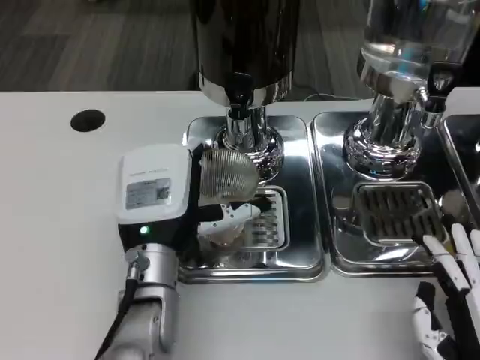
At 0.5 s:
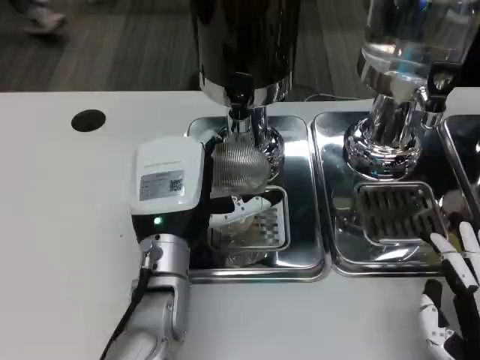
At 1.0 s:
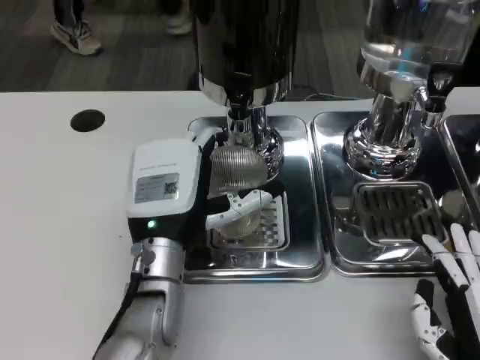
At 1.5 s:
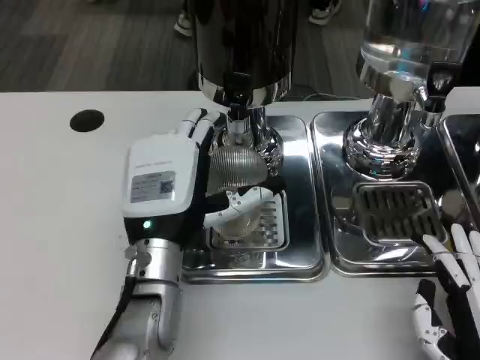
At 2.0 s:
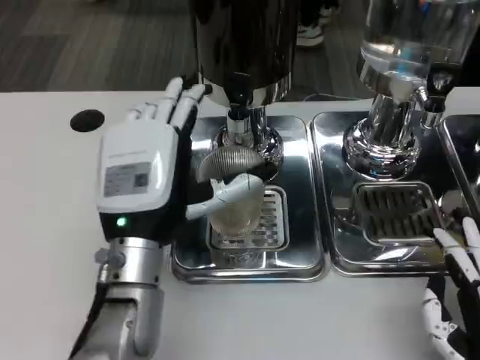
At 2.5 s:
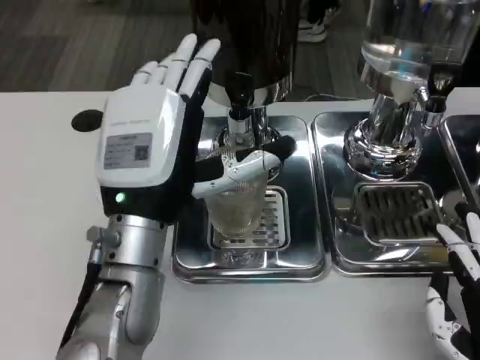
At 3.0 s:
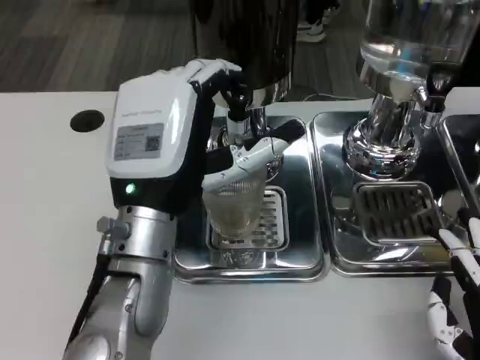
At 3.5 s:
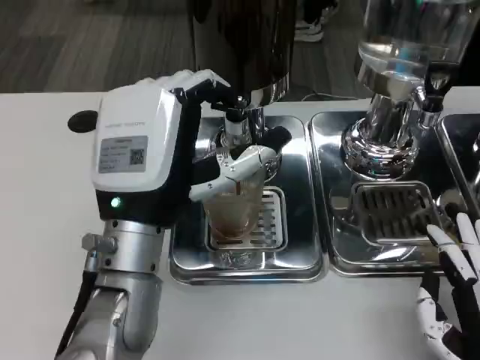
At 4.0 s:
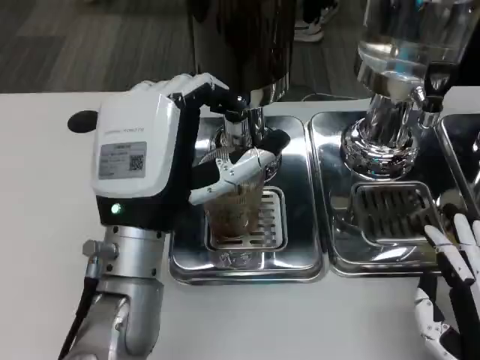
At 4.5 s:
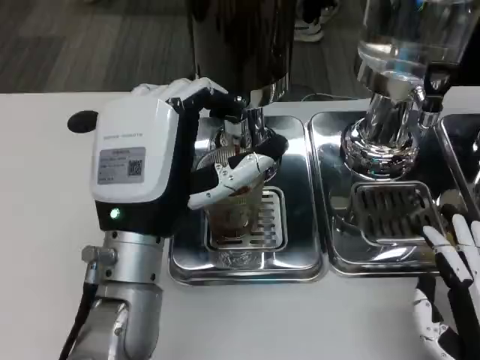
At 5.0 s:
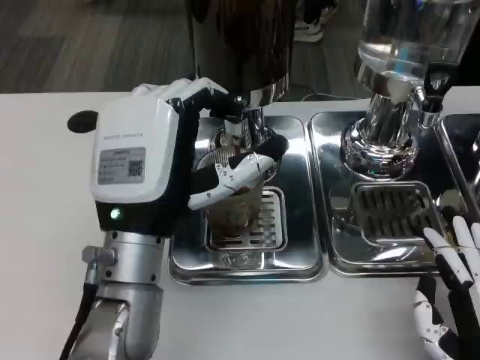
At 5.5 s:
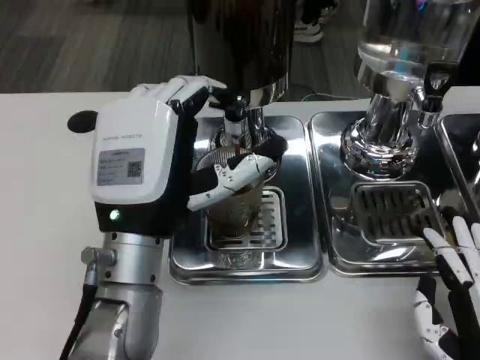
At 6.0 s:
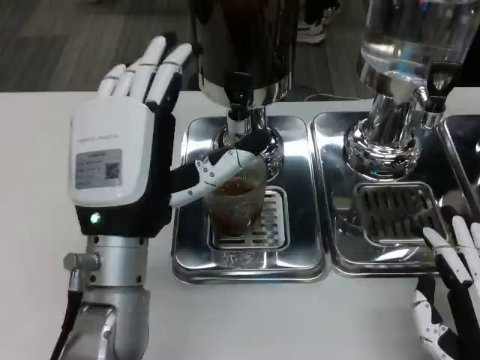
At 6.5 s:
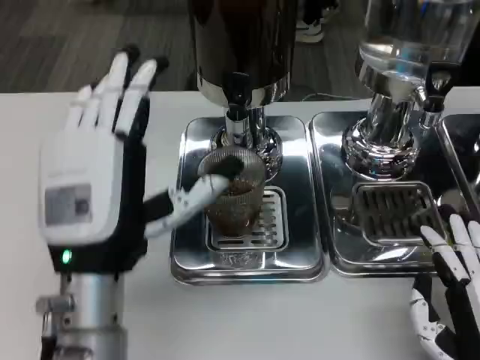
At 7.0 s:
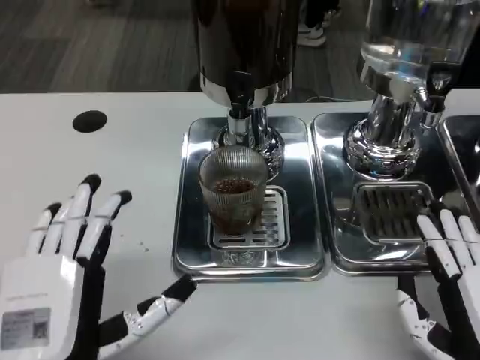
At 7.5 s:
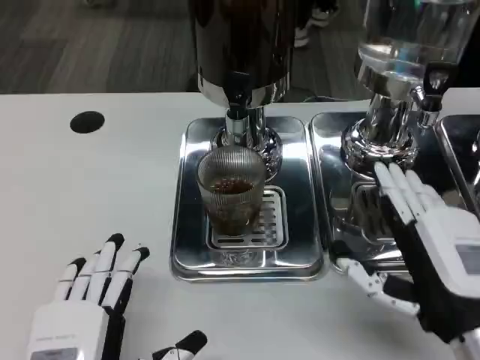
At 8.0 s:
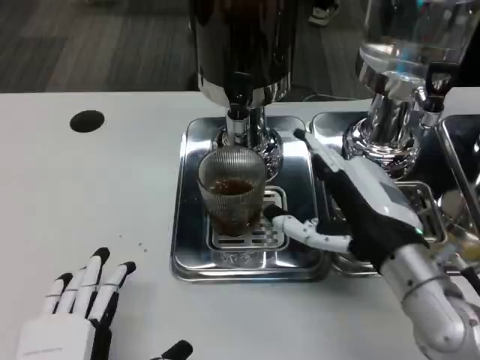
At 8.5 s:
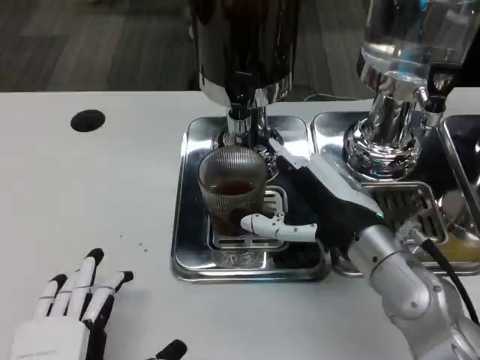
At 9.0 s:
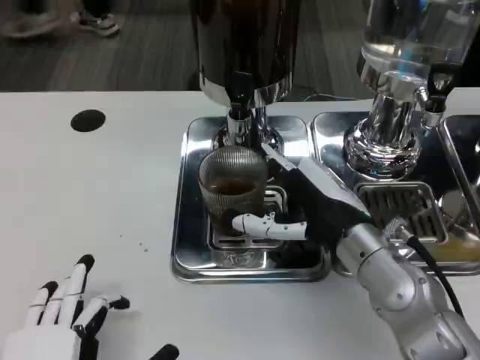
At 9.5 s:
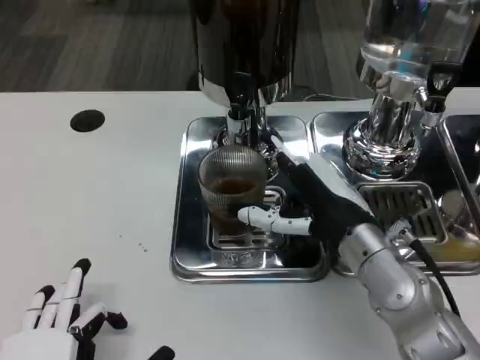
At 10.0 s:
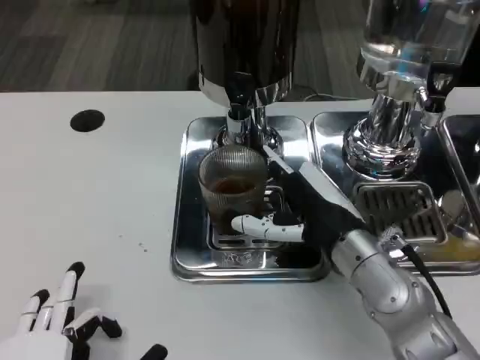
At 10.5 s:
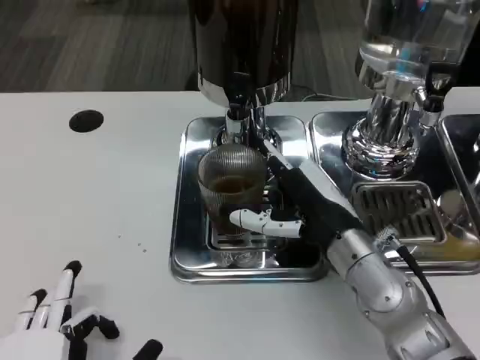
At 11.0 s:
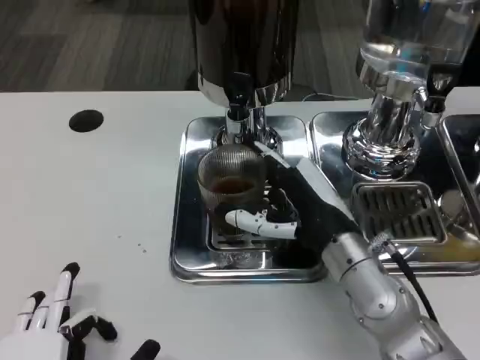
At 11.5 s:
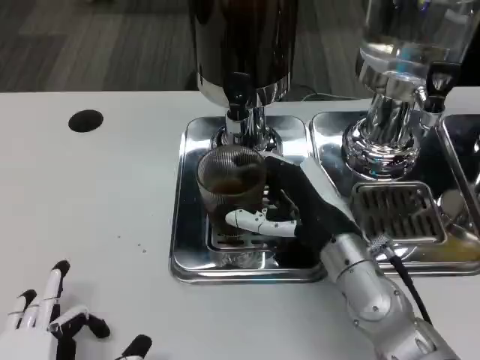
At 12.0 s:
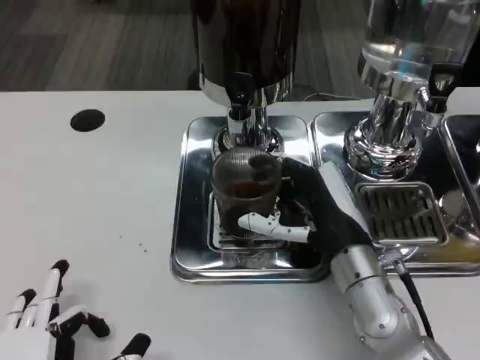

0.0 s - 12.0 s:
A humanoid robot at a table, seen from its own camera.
Task of the whole recording: Grasp the cup under the faucet to collect the drink, then remove the cup.
0.0 s - 2.0 s: The hands move only a little.
6.0 s - 8.0 s: The right hand shifts roughly 15 cm forward, upward and to the left, while the left hand goes about 20 cm backward, downward and to the left.
8.0 s - 10.0 s: The right hand changes place by about 5 cm.
10.0 s - 12.0 s: There are only small adjustments of the hands.

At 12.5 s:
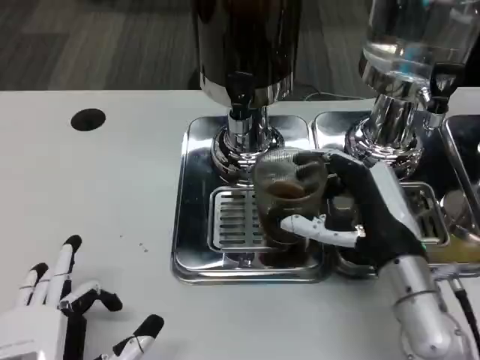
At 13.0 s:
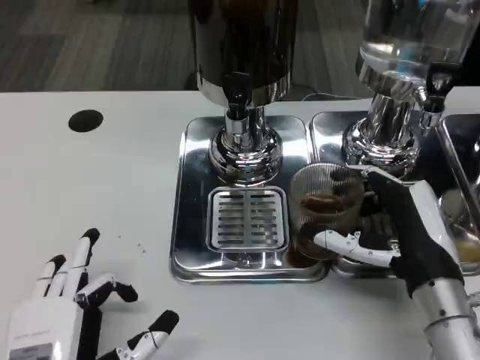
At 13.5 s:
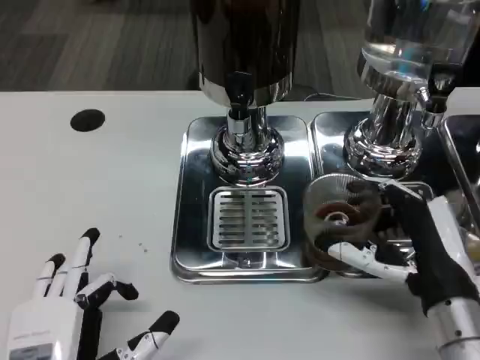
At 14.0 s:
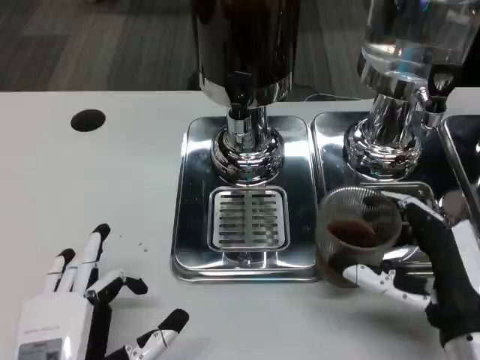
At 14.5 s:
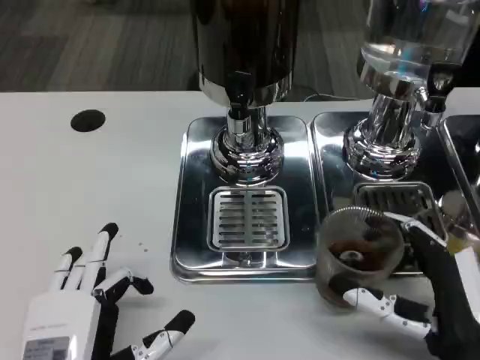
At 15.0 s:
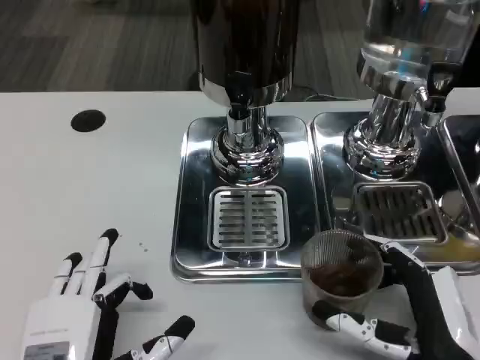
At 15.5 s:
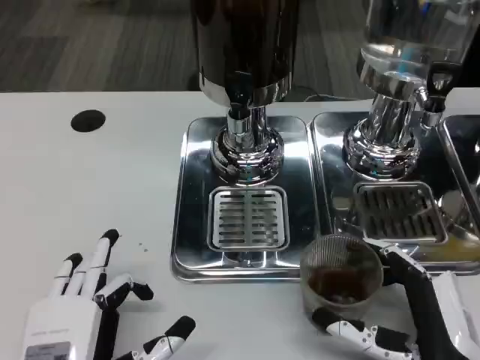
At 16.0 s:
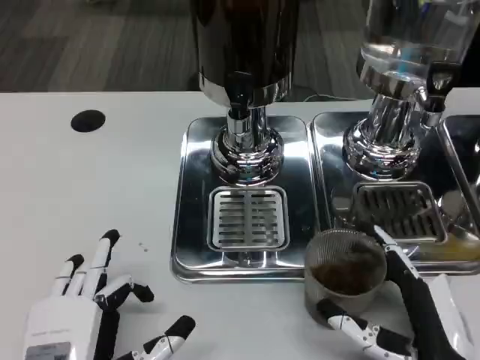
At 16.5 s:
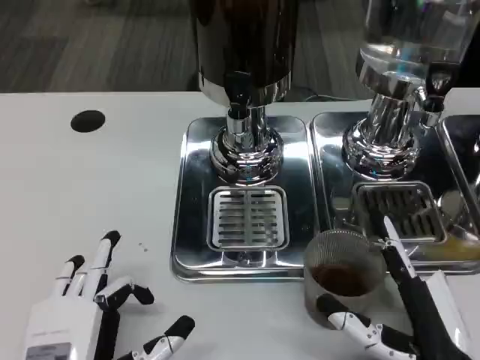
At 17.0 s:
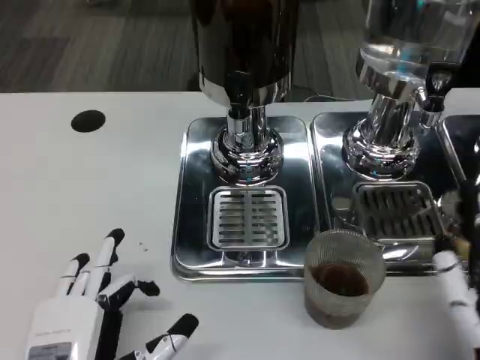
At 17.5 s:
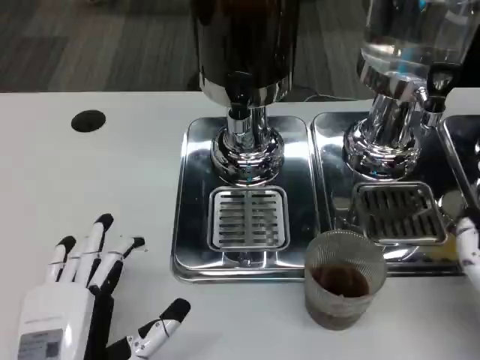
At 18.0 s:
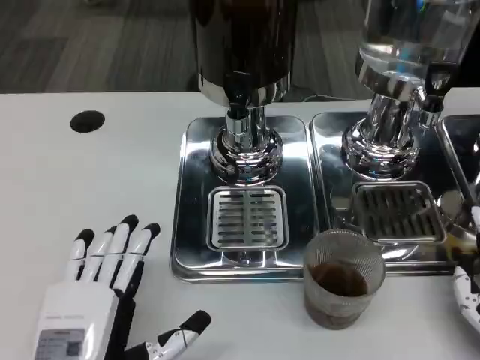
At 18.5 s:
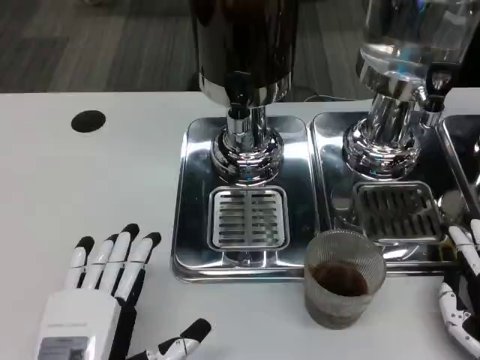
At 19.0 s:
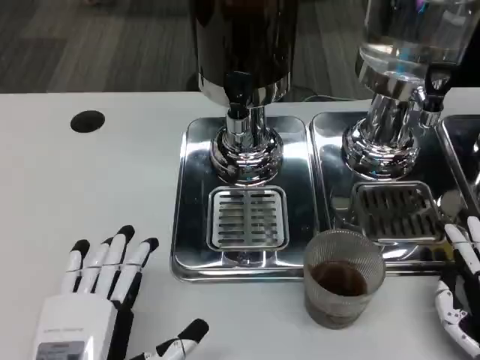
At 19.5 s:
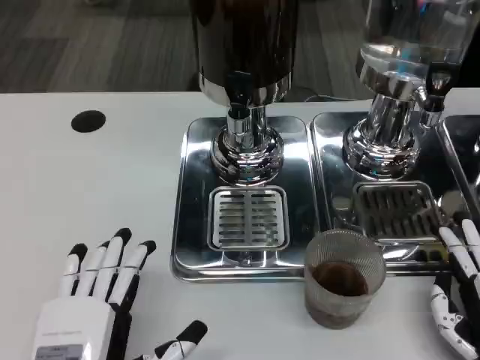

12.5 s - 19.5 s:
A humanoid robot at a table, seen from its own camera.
Task of the whole recording: Grasp the cup under the faucet to collect the drink, then remove the cup.
12.5 s - 14.5 s: The right hand heads backward, covering approximately 10 cm.
14.5 s - 16.0 s: The hands move only a little.
16.0 s - 17.5 s: The right hand shifts approximately 5 cm to the right.
17.5 s - 19.5 s: The right hand moves downward, roughly 5 cm.

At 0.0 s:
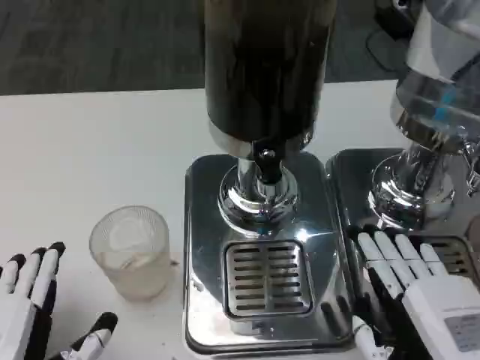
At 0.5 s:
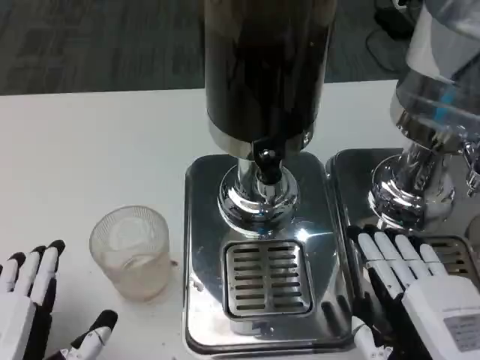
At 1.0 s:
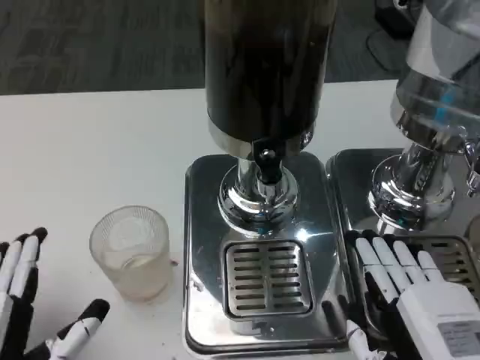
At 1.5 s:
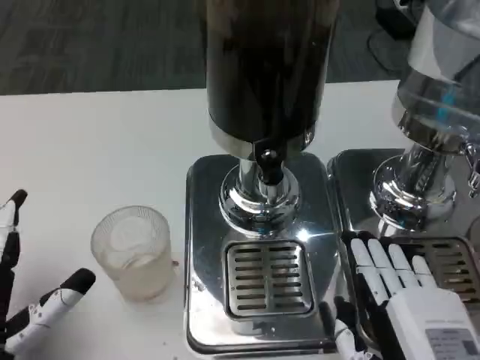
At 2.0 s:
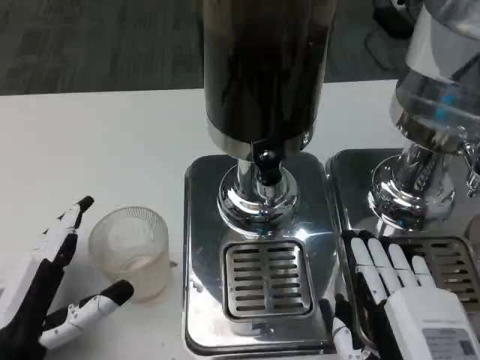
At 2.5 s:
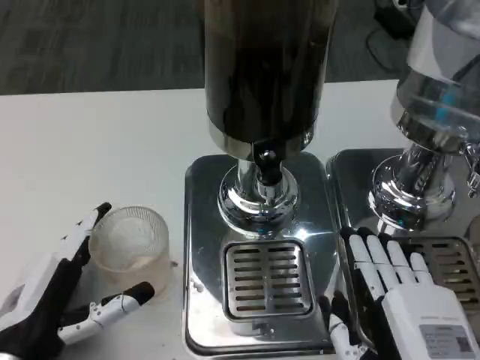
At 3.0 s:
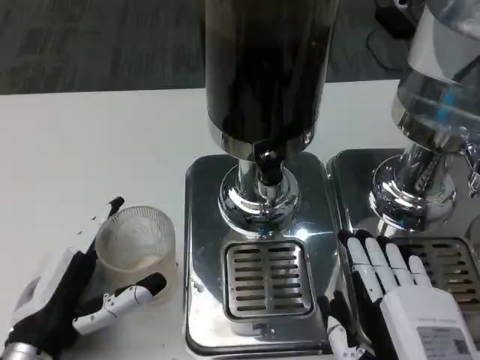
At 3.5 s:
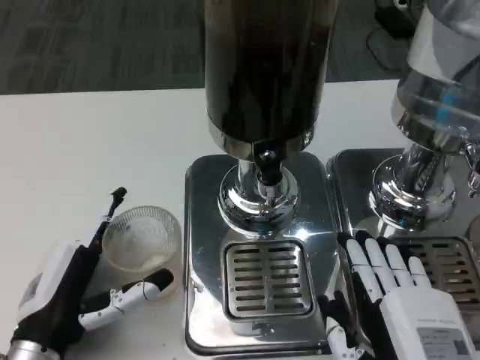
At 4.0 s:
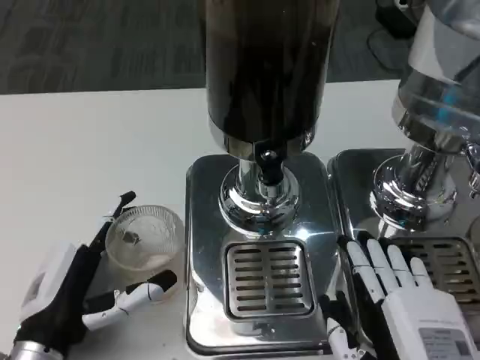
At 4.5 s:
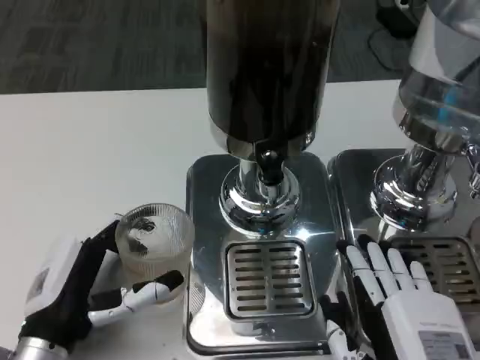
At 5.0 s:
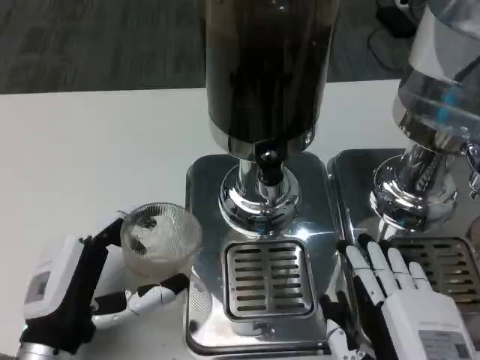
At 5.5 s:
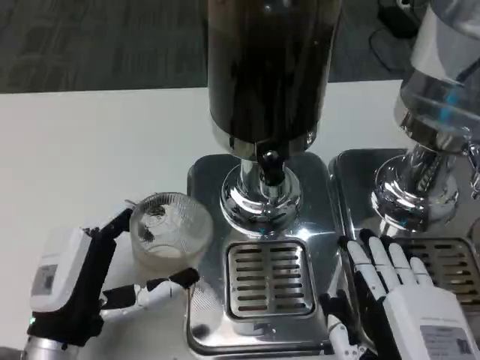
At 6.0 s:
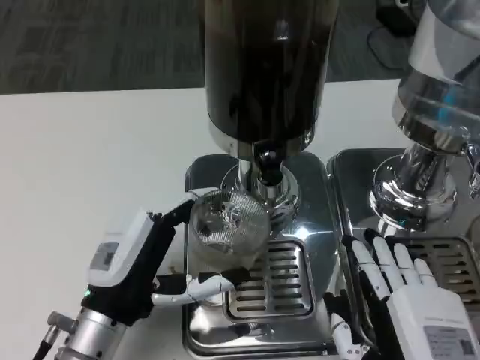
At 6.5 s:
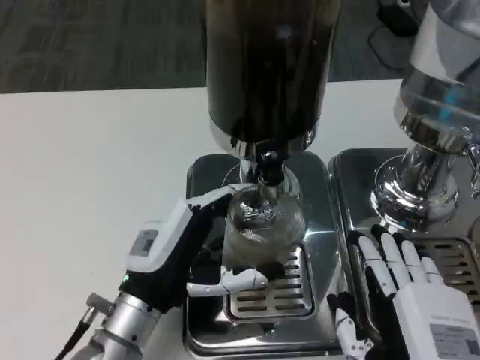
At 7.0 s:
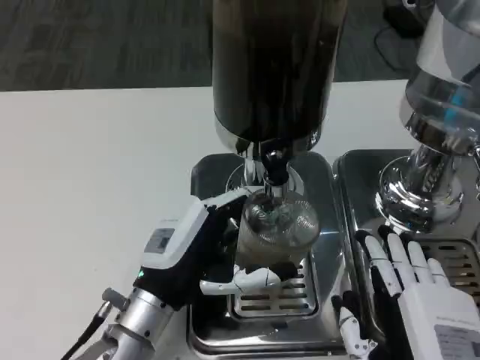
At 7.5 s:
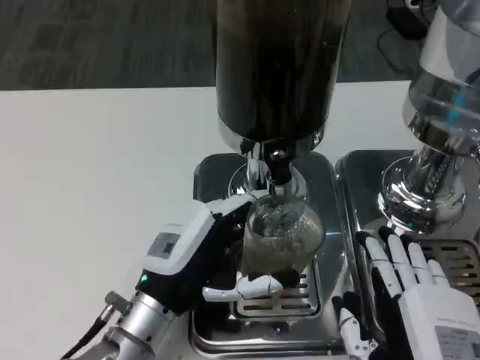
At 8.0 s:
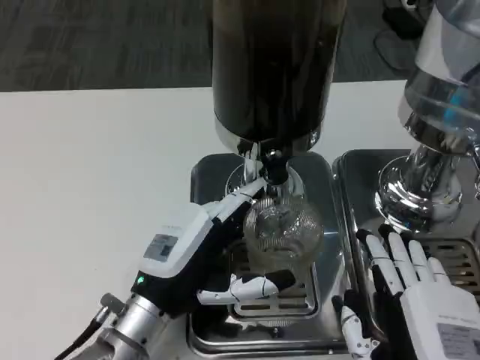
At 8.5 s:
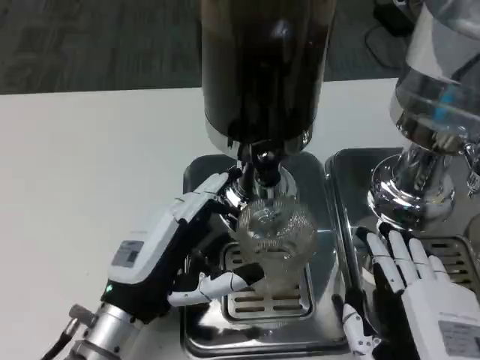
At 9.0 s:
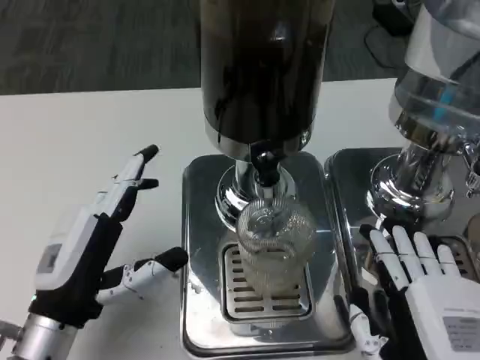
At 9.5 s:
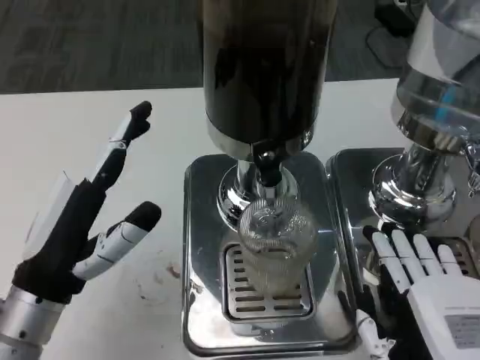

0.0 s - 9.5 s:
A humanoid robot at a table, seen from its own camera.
Task of the whole recording: Grasp the cup under the faucet to collect the drink, then remove the cup.
0.0 s - 2.0 s: The left hand moves forward, approximately 5 cm.
2.0 s - 5.5 s: The hands make only small movements.
5.5 s - 7.5 s: The left hand heads to the right, covering approximately 5 cm.
7.5 s - 9.5 s: The left hand heads to the left and upward, covering approximately 10 cm.
